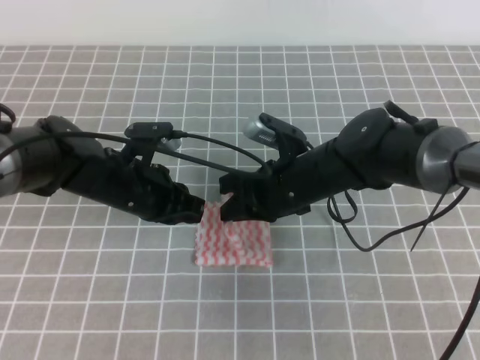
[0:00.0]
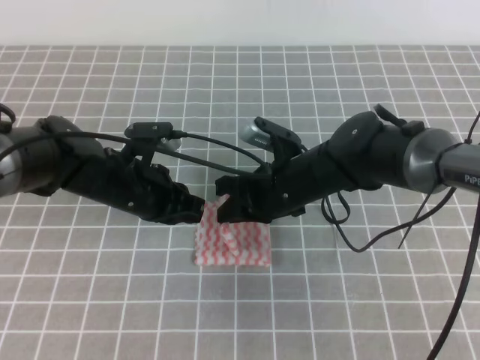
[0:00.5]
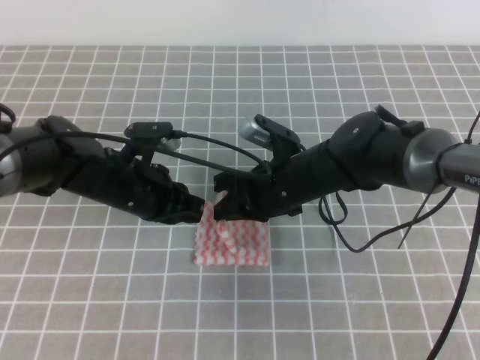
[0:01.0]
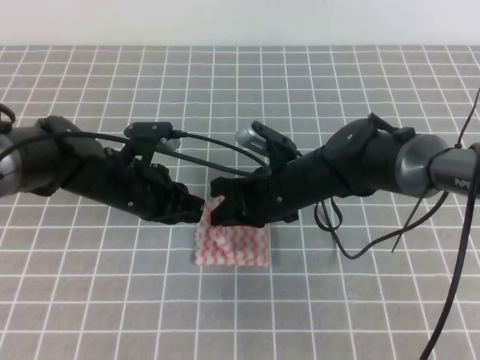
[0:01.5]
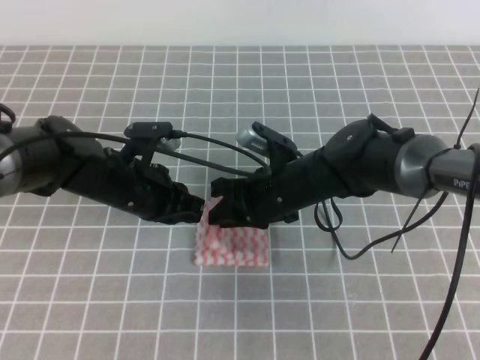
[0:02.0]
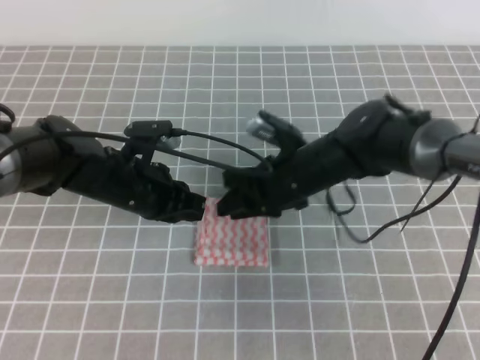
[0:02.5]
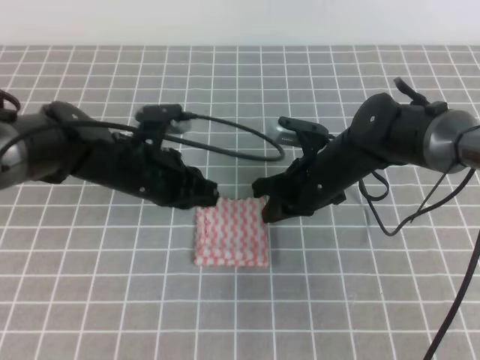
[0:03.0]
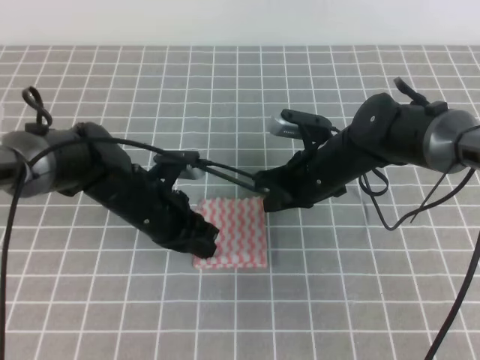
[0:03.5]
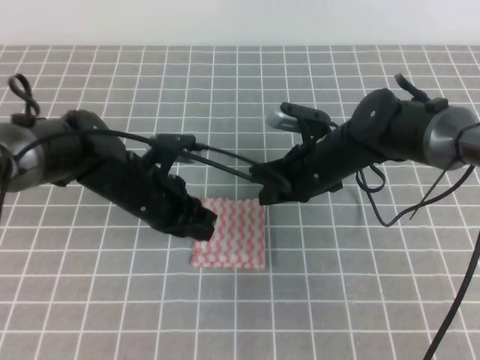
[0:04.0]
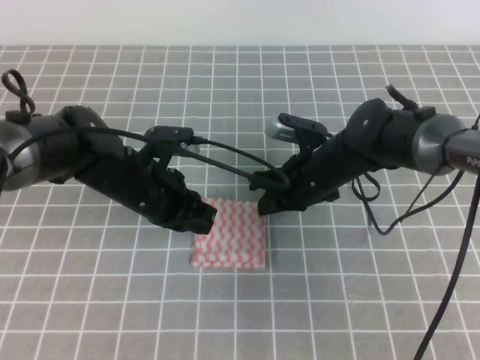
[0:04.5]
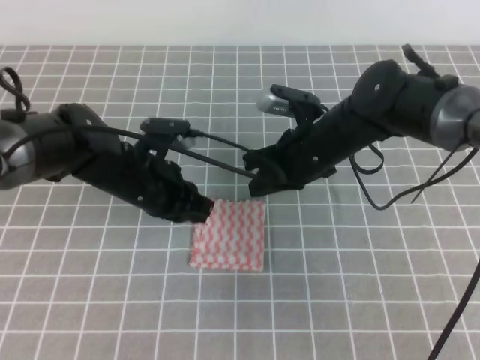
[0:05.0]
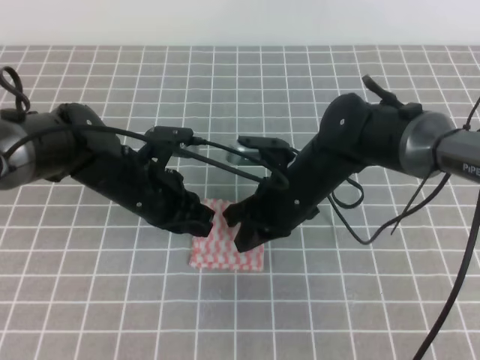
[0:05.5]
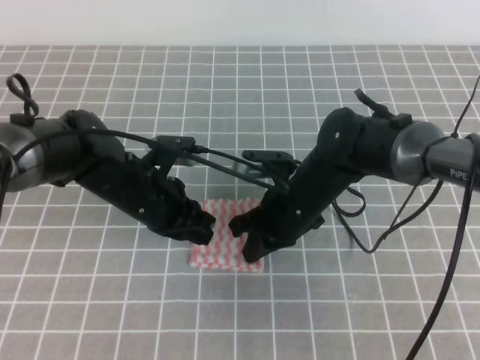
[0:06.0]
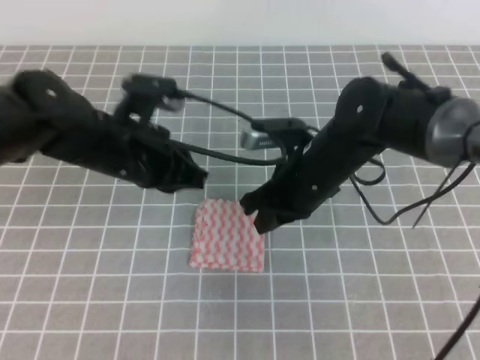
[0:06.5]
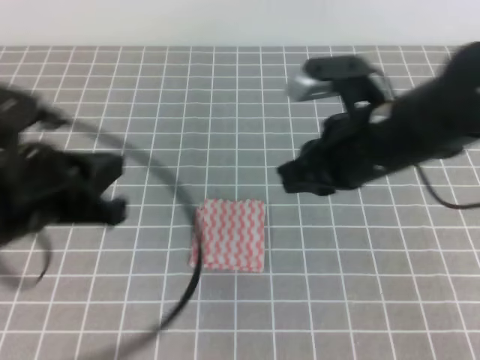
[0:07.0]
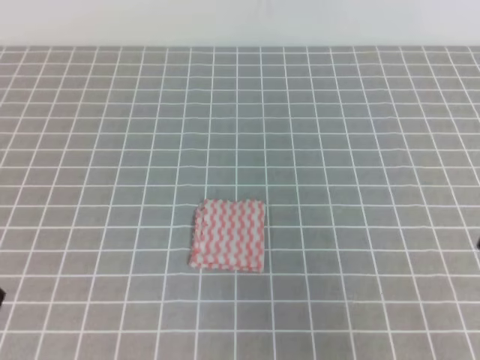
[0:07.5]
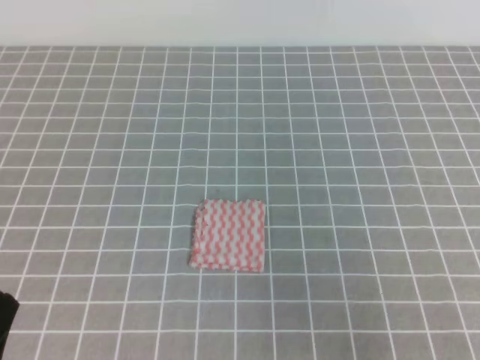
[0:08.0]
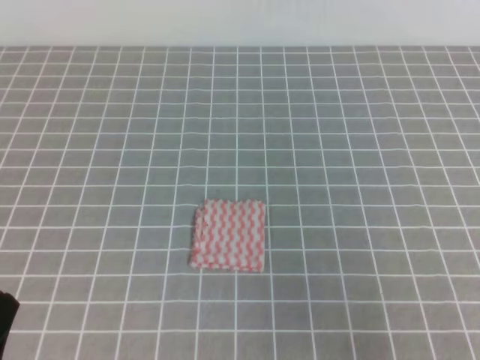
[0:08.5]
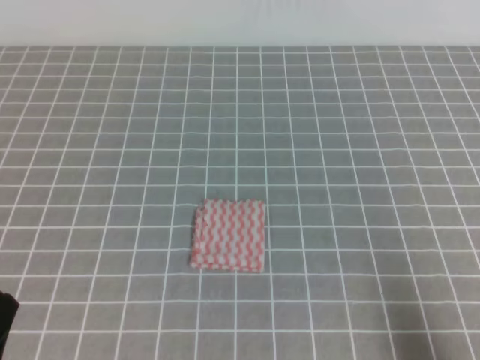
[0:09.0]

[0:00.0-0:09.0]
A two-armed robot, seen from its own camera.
0:00.0 to 0:02.0: The right gripper opens.
0:02.0 to 0:04.5: The right gripper moves roughly 5 cm, and closes.
0:04.5 to 0:07.0: The left gripper shifts roughly 20 cm backward, upward and to the left; the right gripper goes approximately 20 cm upward and backward.
0:07.0 to 0:09.0: The right gripper shifts some 30 cm backward, to the right and downward; the left gripper is displaced backward, downward and to the left by about 20 cm.
